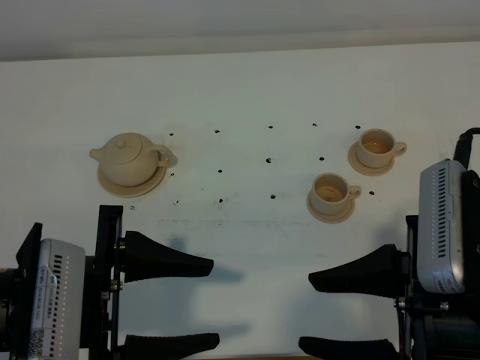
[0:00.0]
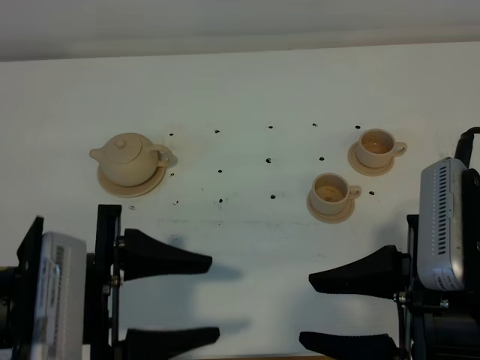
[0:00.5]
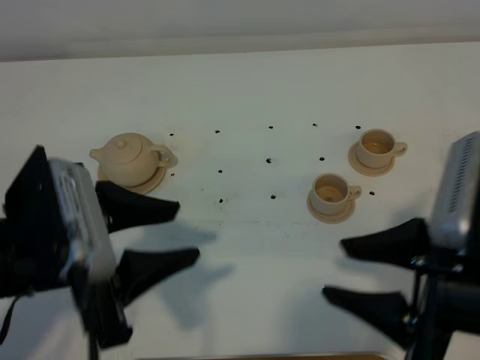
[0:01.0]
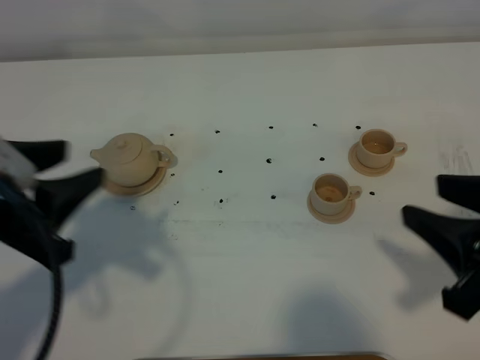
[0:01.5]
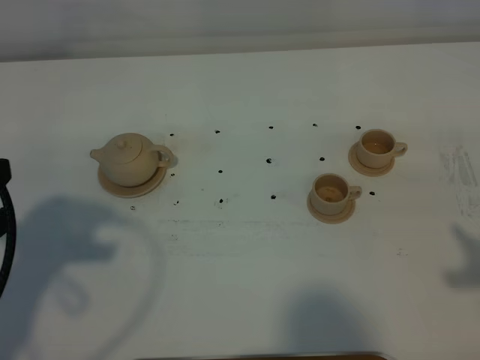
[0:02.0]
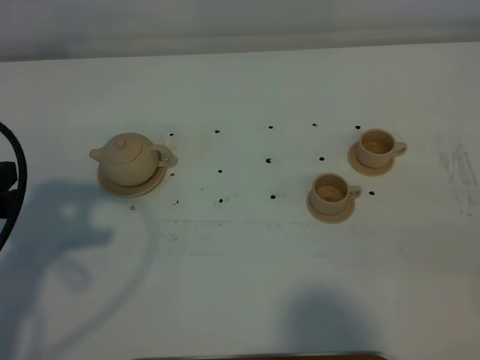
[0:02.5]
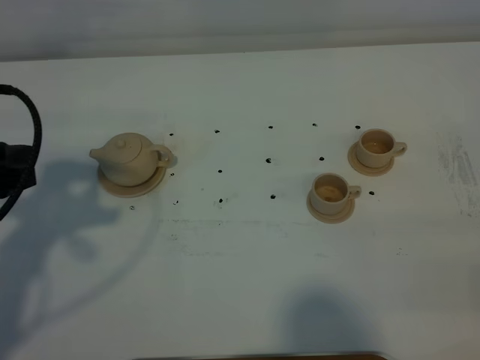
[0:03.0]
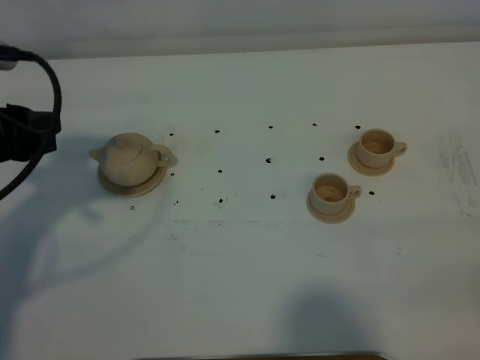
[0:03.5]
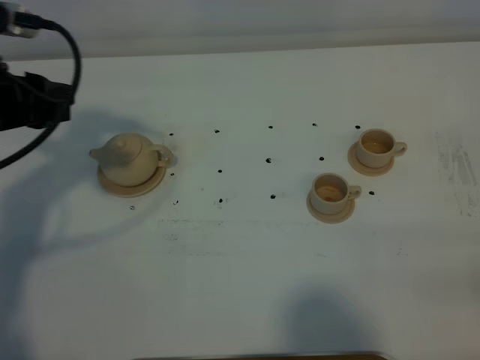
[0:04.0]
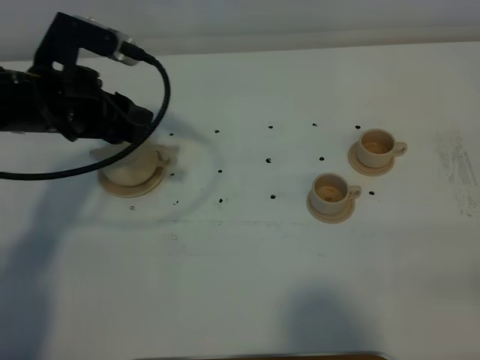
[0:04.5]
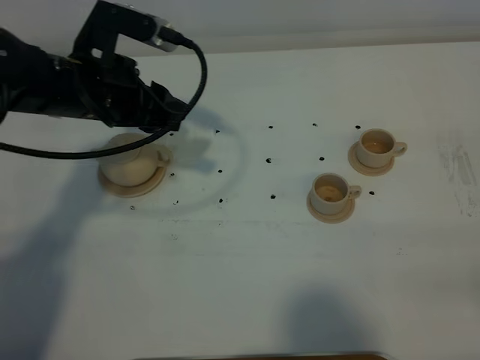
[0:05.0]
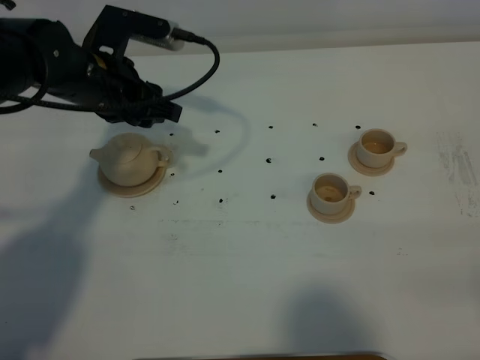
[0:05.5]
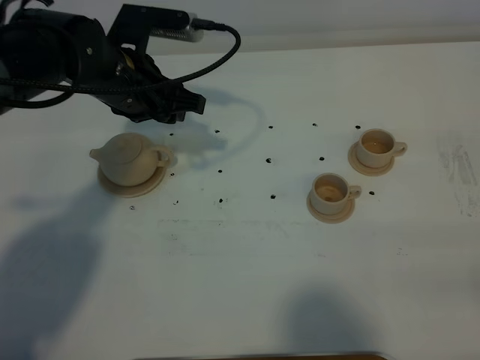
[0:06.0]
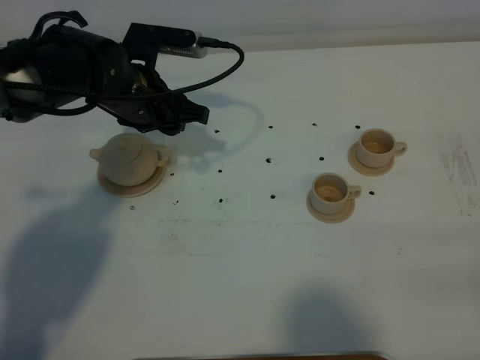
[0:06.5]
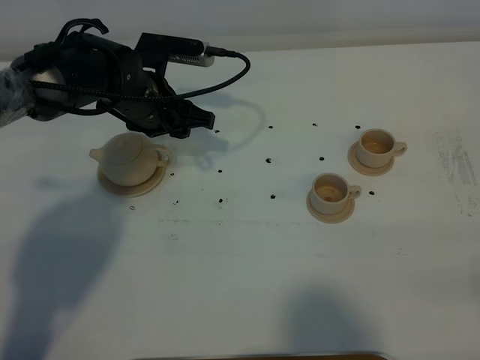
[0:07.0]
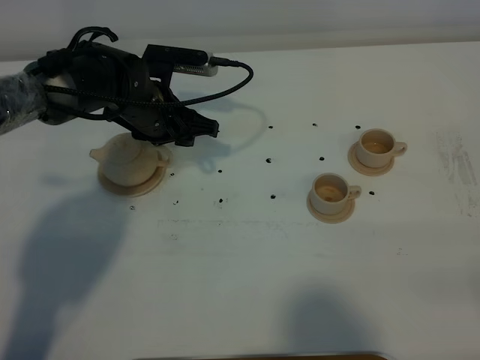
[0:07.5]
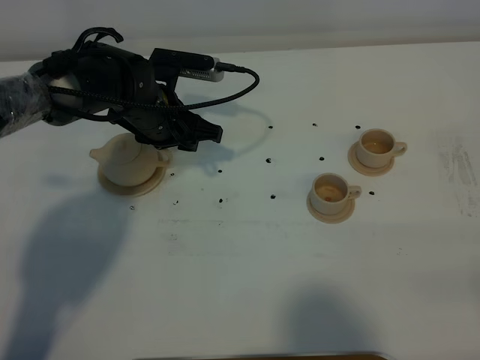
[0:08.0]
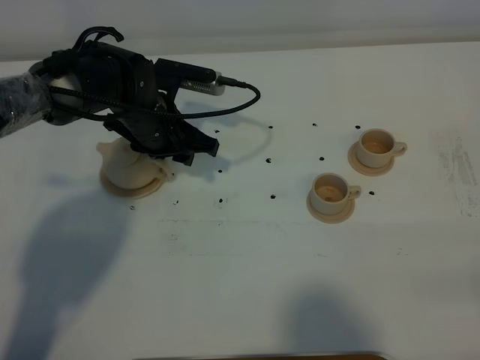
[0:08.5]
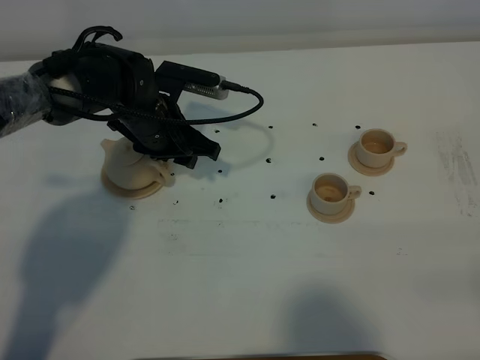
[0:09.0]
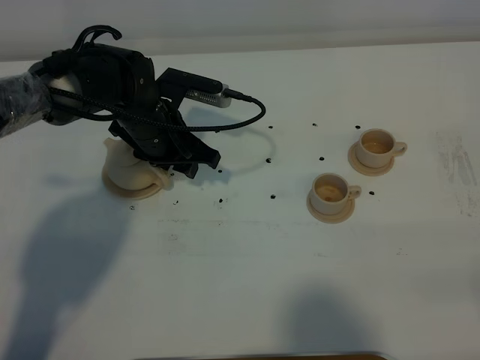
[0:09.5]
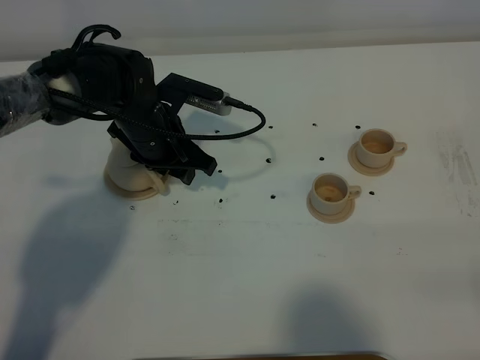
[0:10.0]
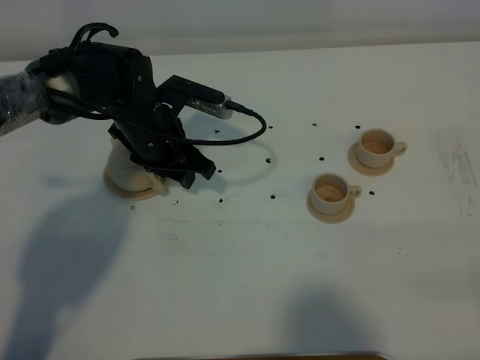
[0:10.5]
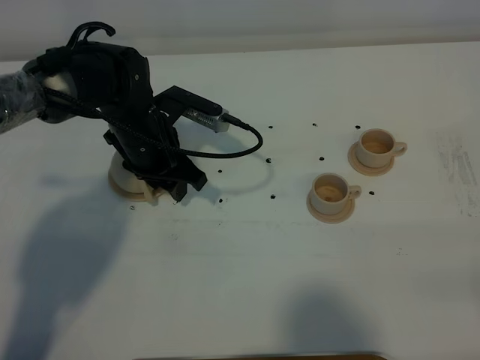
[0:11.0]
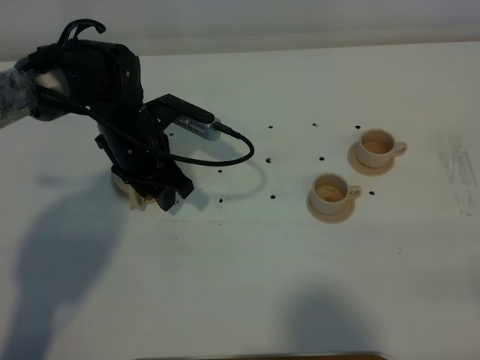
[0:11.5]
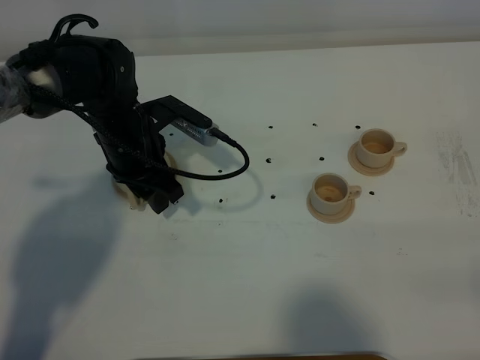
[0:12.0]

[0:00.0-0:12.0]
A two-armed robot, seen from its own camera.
Task of the whole recording: grasp the brown teapot and pour the tea into the two brown teacups one by one, put the brown teapot back in its original place.
0:00.0 to 0:02.0: The right gripper heads to the right, covering about 10 cm; the left gripper goes roughly 10 cm to the left.
0:02.0 to 0:04.0: The left gripper shifts some 15 cm forward.
0:04.0 to 0:06.0: The left gripper shifts about 15 cm to the right, forward and downward.
0:06.0 to 0:08.0: The left gripper goes roughly 5 cm downward.
0:08.0 to 0:10.0: The grippers move only a little.

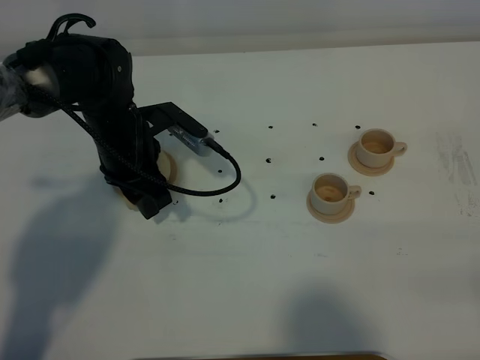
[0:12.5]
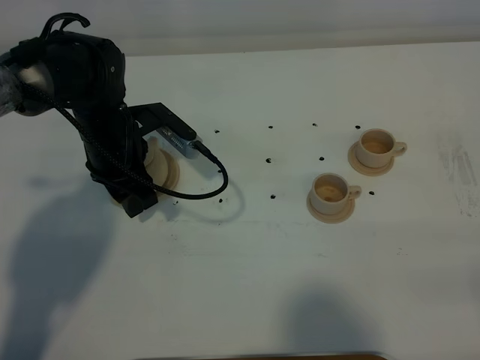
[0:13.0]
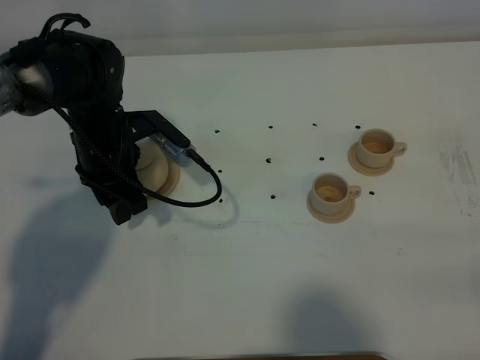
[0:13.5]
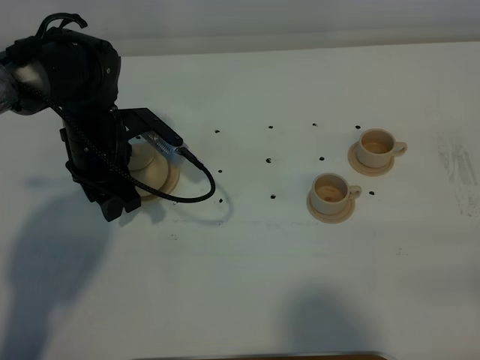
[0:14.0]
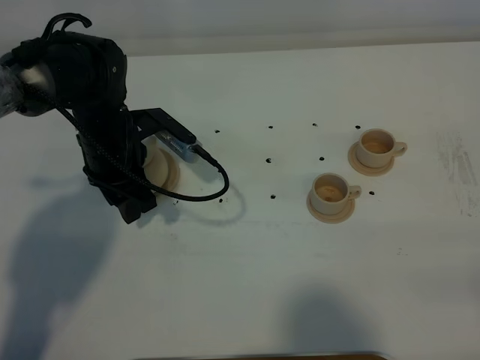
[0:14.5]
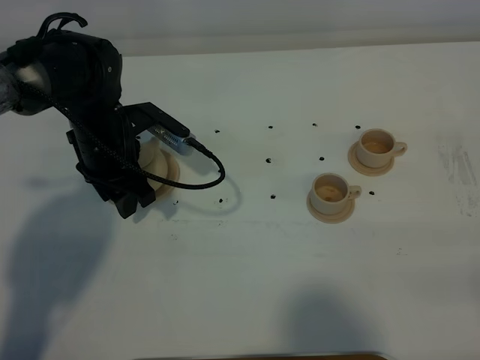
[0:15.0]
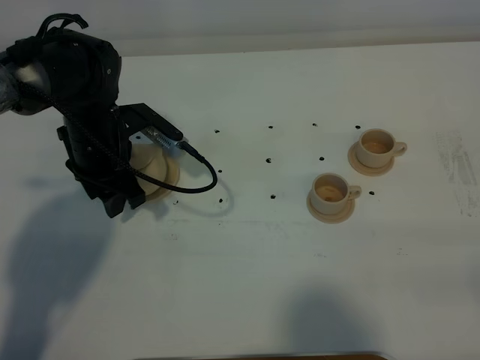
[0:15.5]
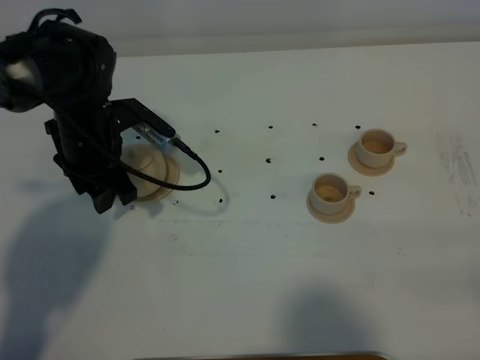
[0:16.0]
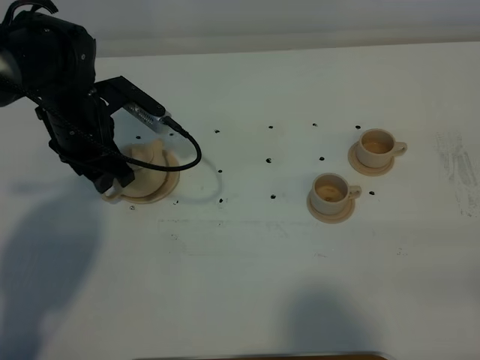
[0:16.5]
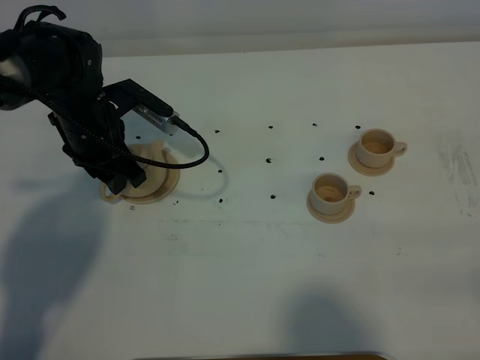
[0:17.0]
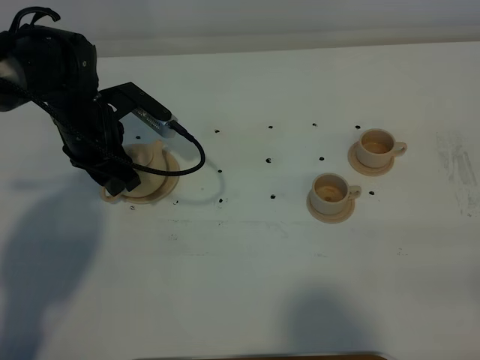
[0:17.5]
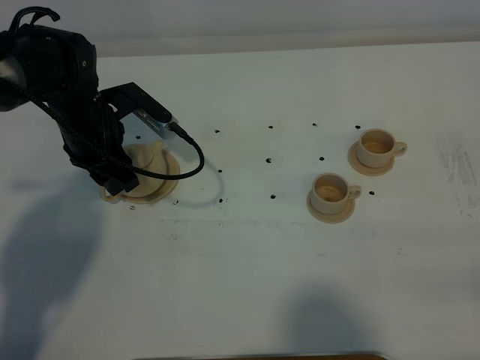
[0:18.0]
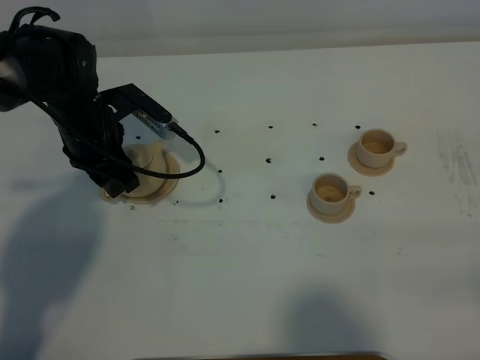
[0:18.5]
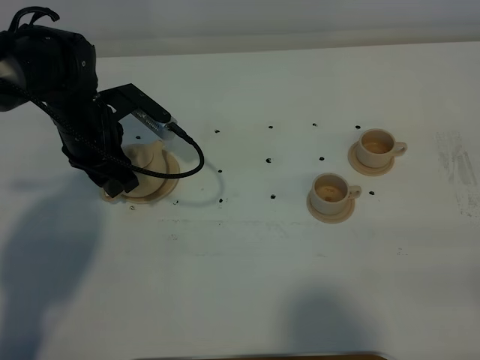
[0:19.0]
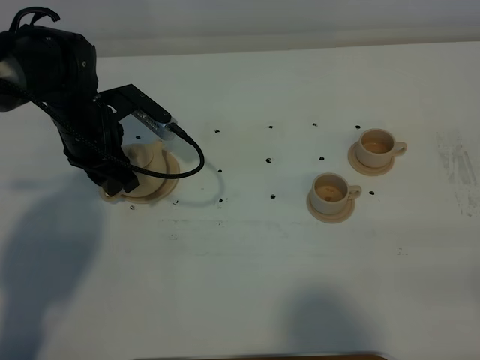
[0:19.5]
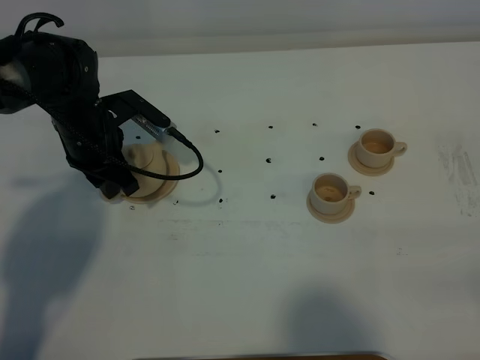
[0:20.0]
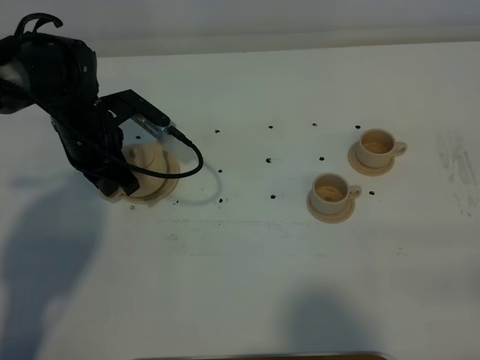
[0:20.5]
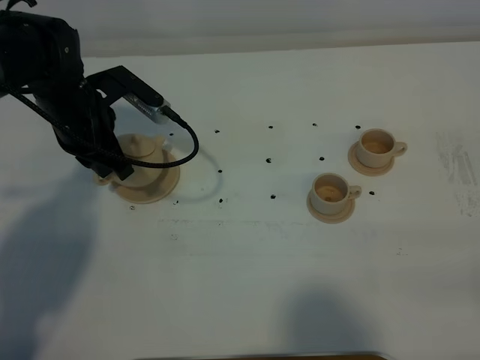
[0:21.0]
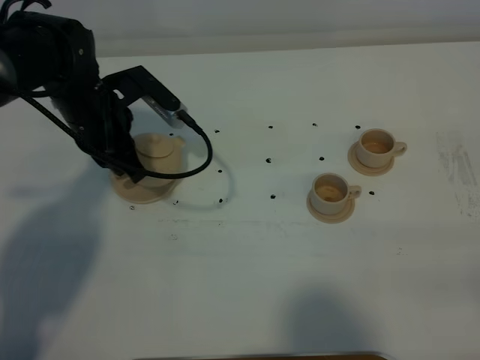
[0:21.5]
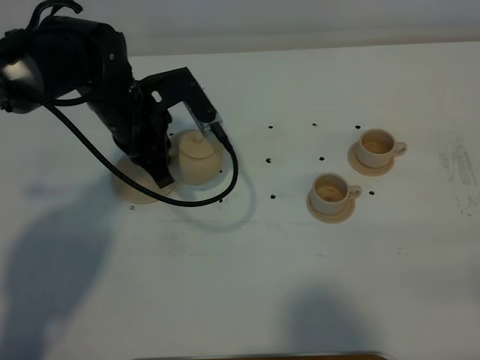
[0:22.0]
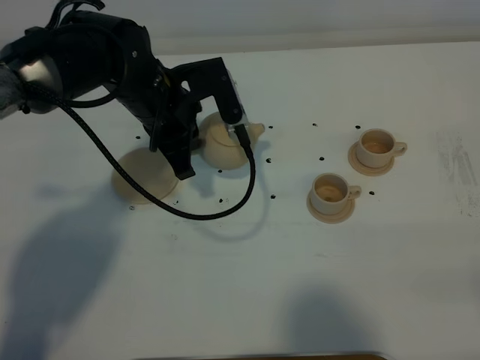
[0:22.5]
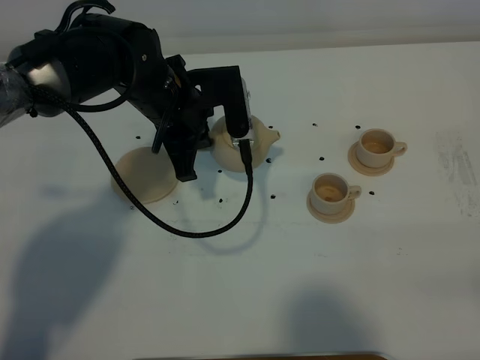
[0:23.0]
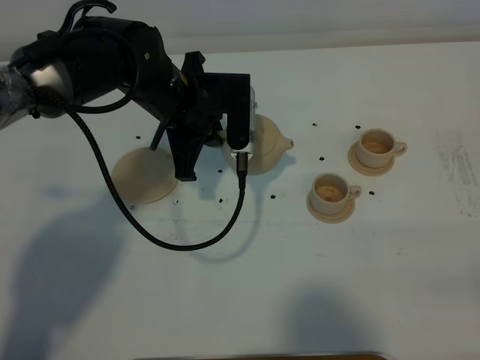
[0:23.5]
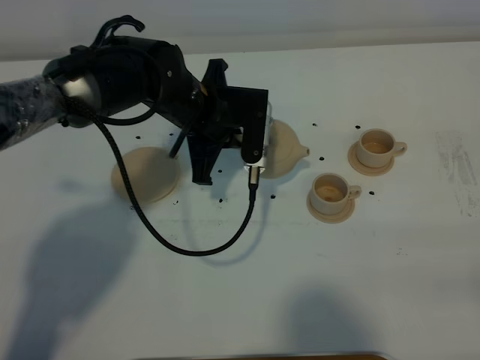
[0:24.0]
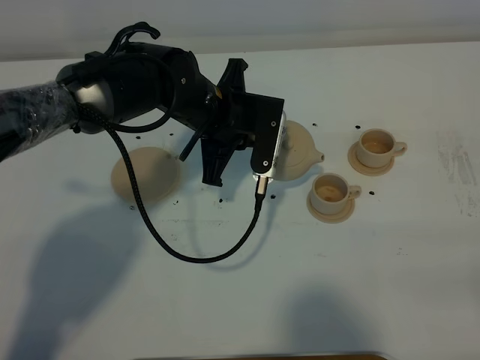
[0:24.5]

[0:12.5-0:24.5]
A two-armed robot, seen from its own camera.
Task of the whole recording: grasp the brown teapot and pour the tea into the two brown teacups one by one, put the brown teapot back in its original place.
Step, 0:12.5 to 0:21.0: Pick up the teapot with the left gripper.
0:12.5 to 0:18.5: There are only small adjustments of the grippers.
0:18.5 to 0:20.5: The left gripper closes up.
0:20.5 to 0:22.5: The left gripper shifts about 10 cm to the right and upward.
0:22.5 to 0:24.5: The left gripper is displaced to the right by about 5 cm.

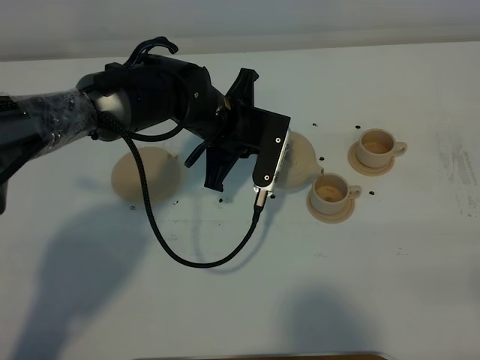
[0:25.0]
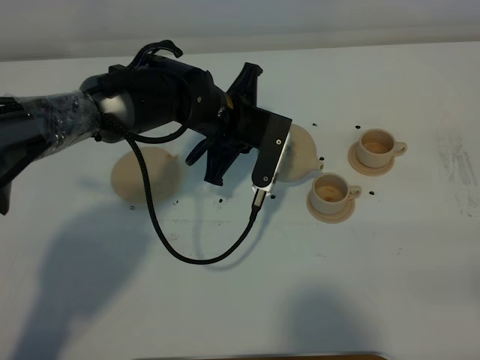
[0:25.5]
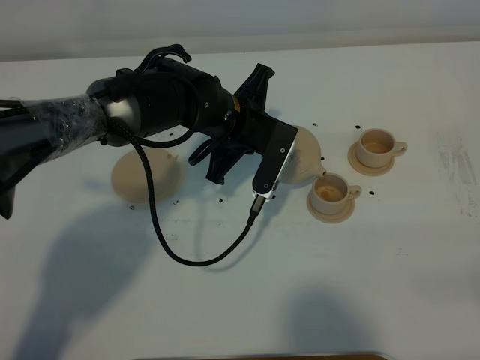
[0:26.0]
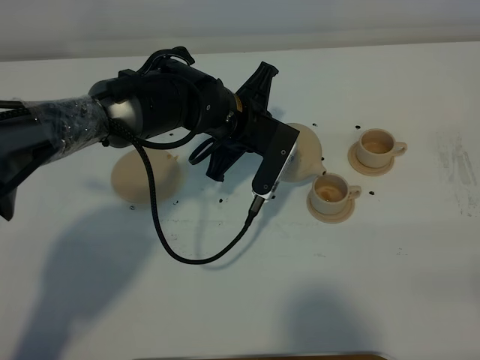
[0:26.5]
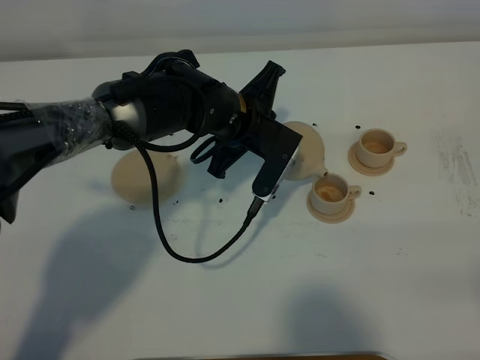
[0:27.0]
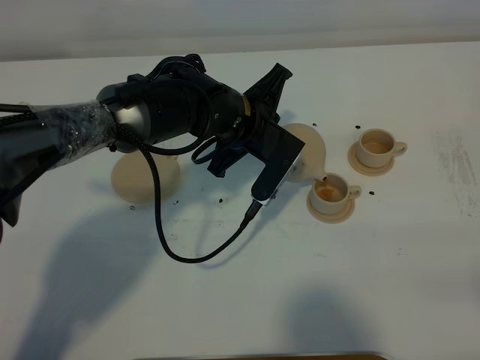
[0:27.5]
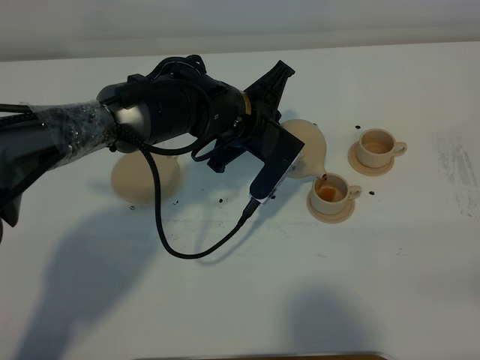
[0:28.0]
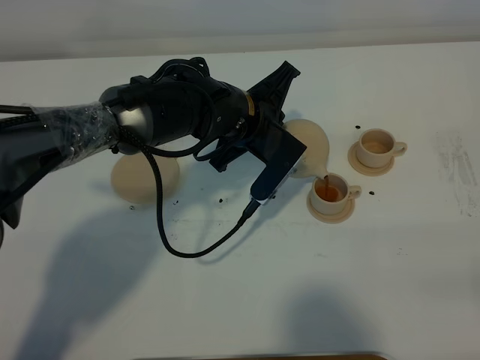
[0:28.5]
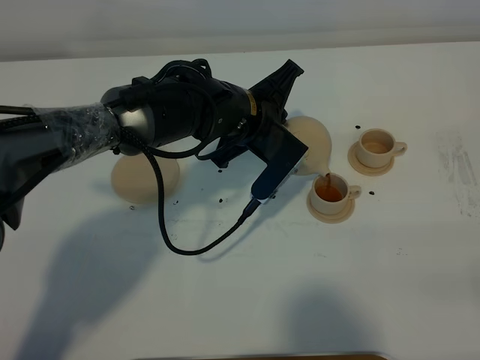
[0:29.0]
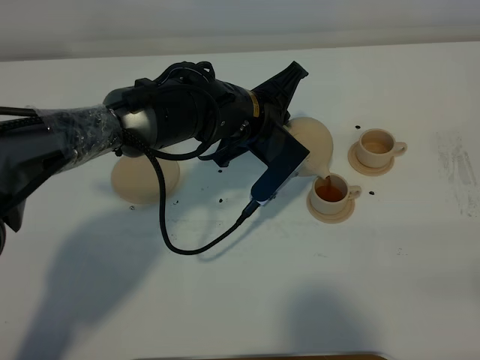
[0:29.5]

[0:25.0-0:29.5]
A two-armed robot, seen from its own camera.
Task of the whole recording: grasp the brown teapot and pour the tea into the two brown teacups one by one, put the brown teapot back in its original place.
0:25.0 to 0:27.0: There are only small adjustments of the grippers.
0:27.0 to 0:29.5: The grippers stay close to where they were, moving slightly.
